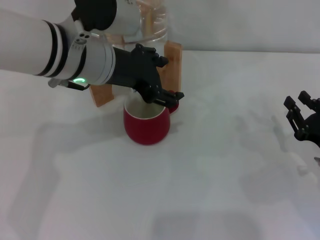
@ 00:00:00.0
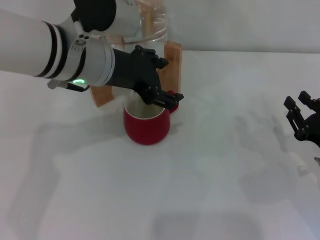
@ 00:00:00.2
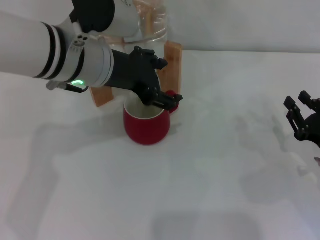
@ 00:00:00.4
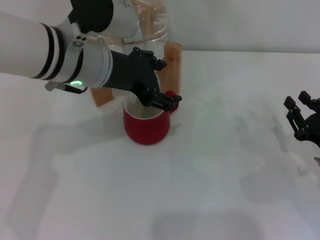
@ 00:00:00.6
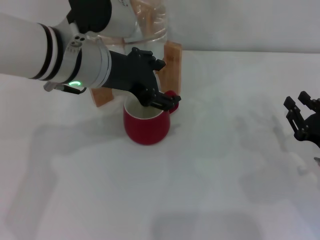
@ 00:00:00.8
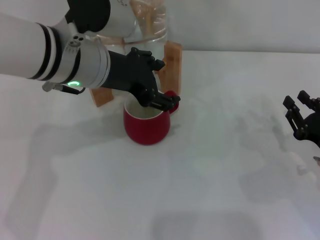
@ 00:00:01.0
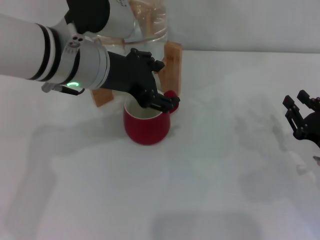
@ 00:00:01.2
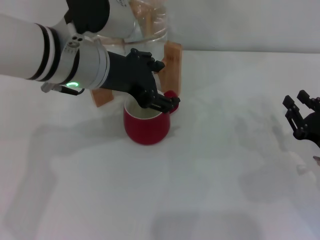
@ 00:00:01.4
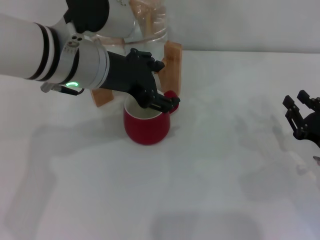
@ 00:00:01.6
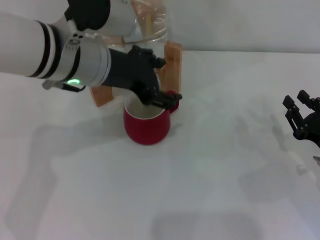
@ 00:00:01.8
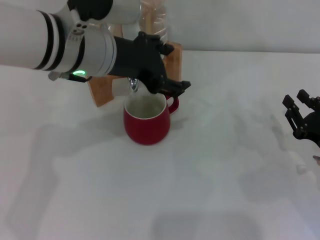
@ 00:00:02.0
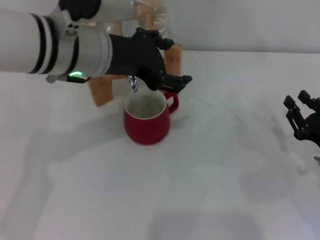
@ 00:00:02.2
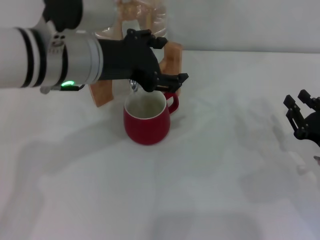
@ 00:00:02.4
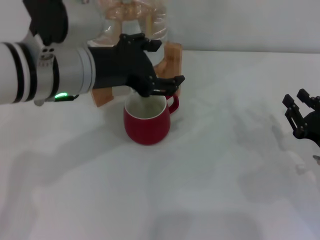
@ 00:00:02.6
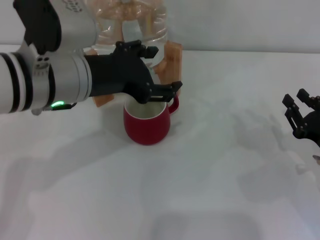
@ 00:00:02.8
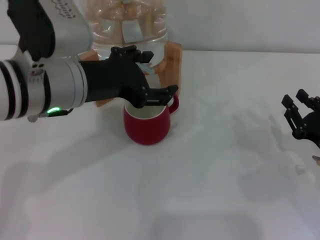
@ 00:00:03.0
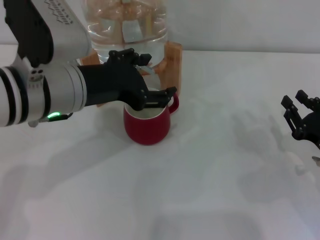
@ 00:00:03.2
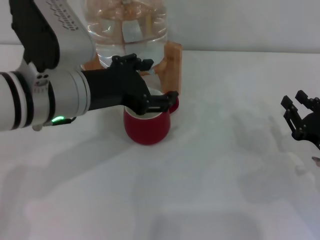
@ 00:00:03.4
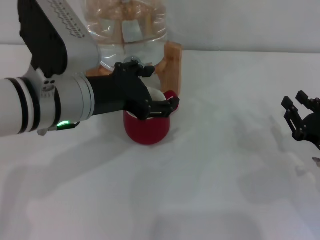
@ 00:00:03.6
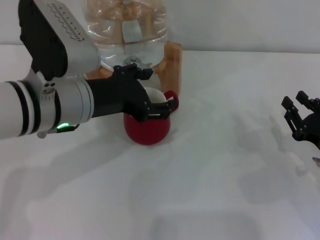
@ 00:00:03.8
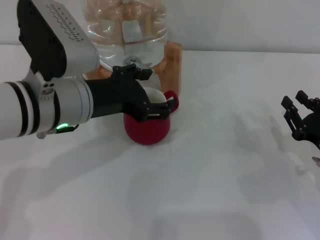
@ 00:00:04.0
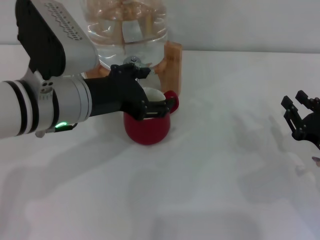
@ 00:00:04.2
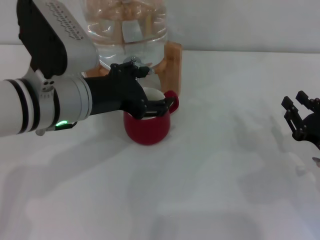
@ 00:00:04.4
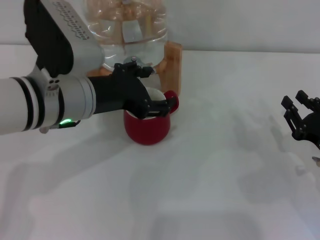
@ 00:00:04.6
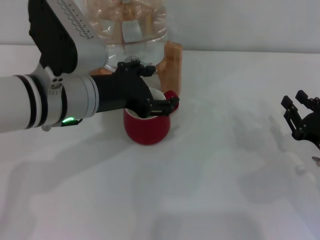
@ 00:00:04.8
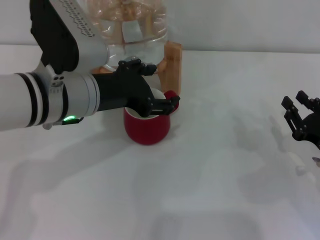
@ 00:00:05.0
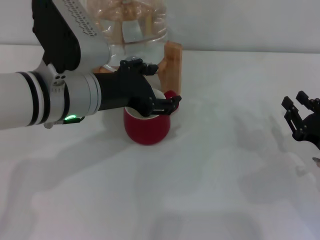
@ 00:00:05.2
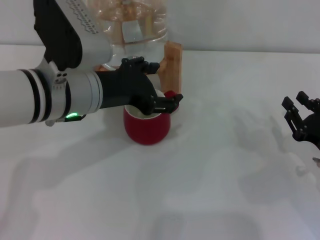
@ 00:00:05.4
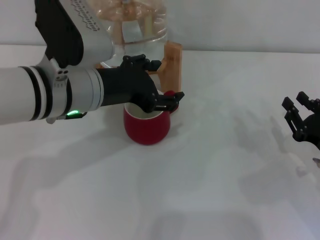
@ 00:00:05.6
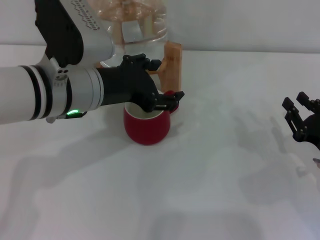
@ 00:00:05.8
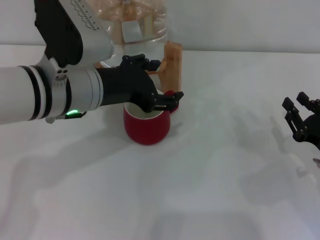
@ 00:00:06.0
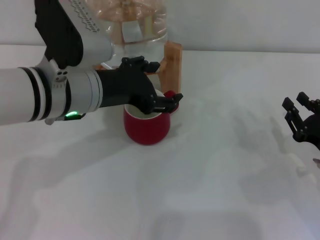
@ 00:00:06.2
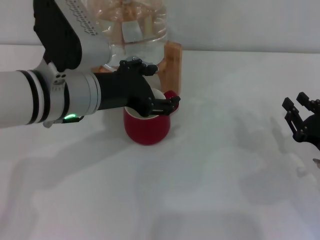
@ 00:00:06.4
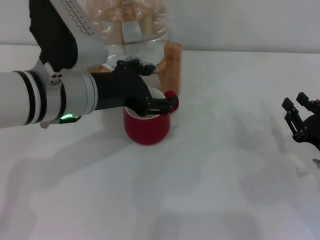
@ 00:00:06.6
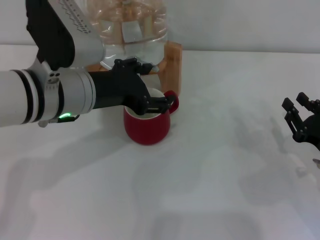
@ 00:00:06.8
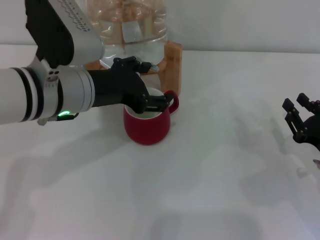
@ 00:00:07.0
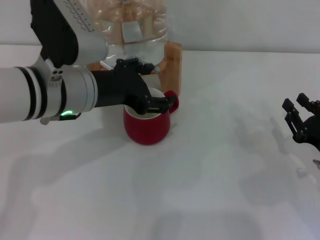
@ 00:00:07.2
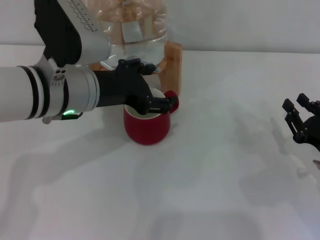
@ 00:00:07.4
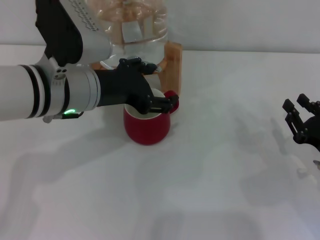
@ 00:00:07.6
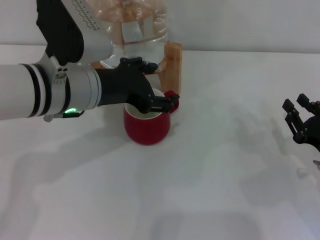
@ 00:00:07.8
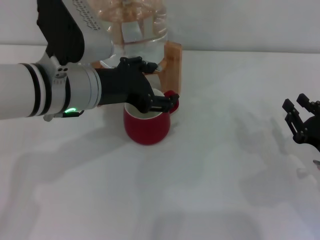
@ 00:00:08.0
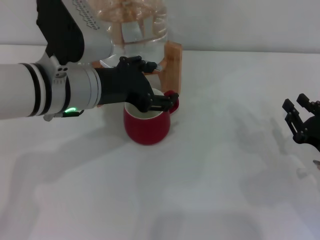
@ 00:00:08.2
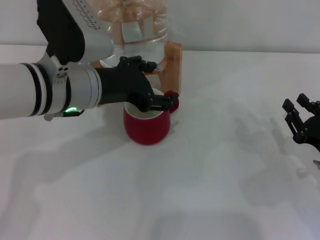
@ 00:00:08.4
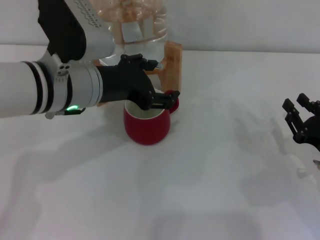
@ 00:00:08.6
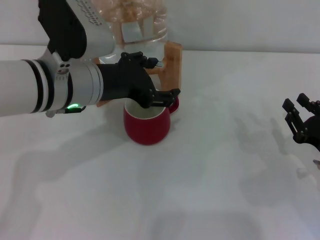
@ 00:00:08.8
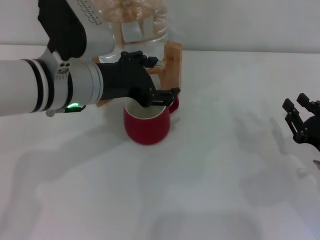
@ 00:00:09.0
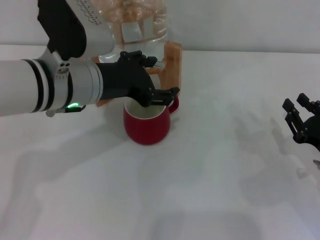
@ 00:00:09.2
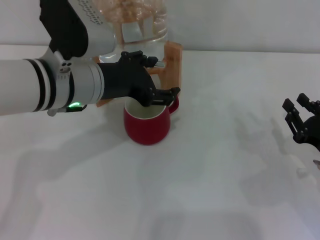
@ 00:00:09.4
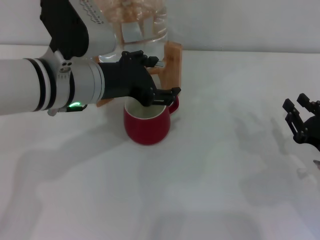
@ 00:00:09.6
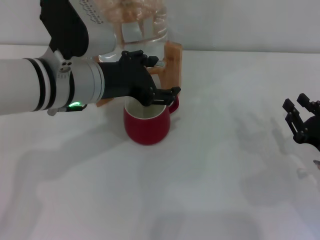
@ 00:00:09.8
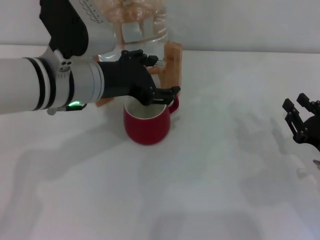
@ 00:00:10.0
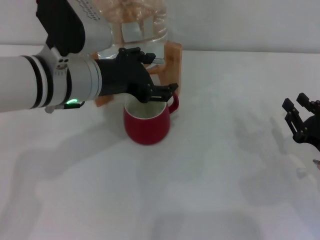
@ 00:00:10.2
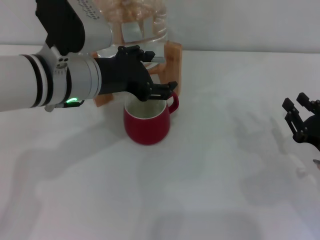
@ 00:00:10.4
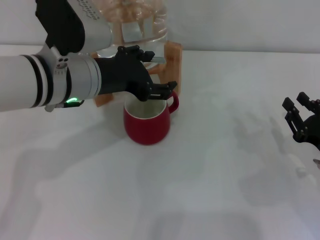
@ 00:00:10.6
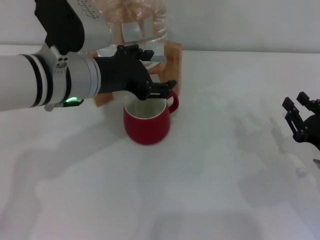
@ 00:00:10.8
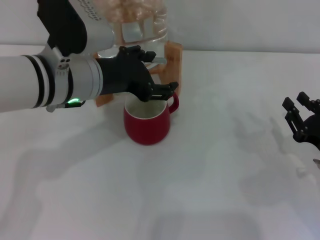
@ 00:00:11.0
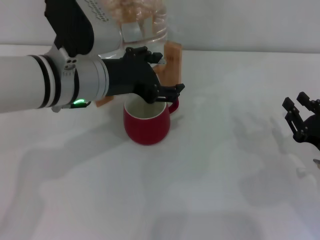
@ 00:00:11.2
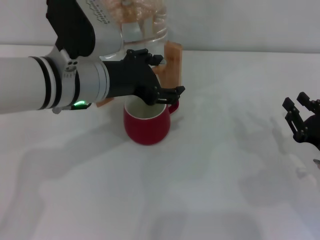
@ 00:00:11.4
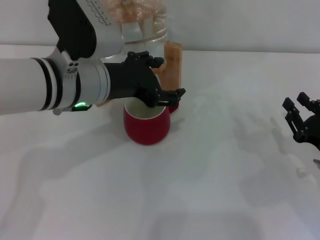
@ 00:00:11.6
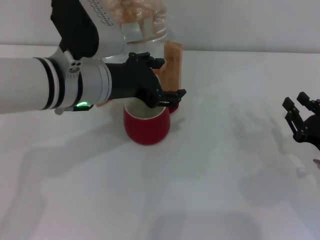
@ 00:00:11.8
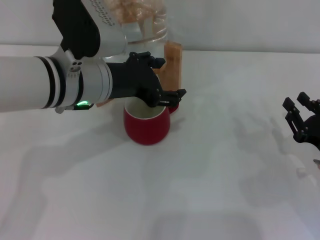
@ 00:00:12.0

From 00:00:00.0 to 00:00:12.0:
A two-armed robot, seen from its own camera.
Task of the whole recording: the right gripper pick up the red cup and place it horizontally under the faucet, the left gripper turn on the faucet to fill the cup, and then turn off the faucet.
Step, from 00:00:00.0 to 00:00:03.4: Open the dispenser valve and fill the cup with water with the left gripper.
From 00:00:00.0 to 00:00:01.6: Neither gripper changes place.
From 00:00:01.6 to 00:00:06.0: The grippers stay close to where they were, moving slightly.
From 00:00:06.0 to 00:00:09.0: Both grippers stay put.
From 00:00:09.0 to 00:00:12.0: Neither gripper changes place.

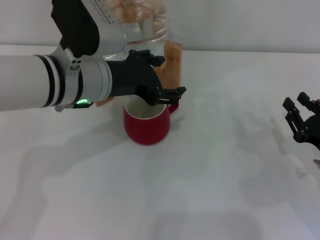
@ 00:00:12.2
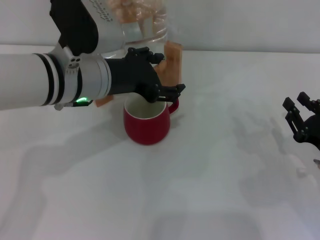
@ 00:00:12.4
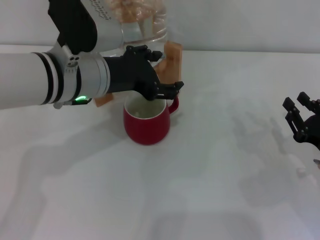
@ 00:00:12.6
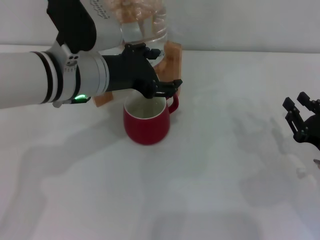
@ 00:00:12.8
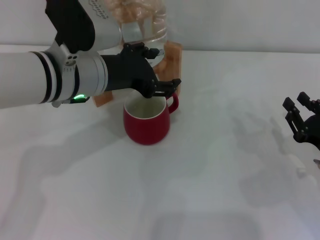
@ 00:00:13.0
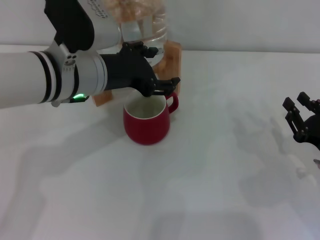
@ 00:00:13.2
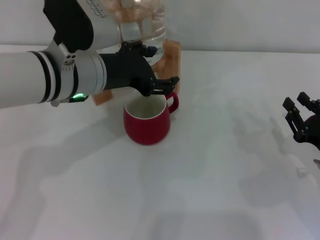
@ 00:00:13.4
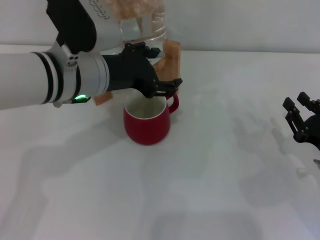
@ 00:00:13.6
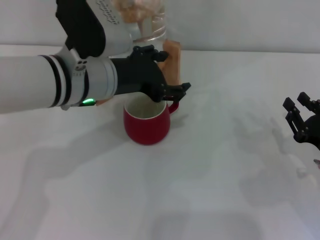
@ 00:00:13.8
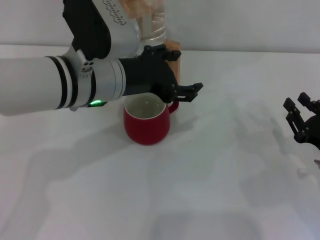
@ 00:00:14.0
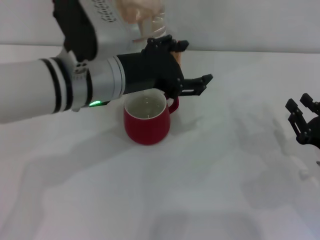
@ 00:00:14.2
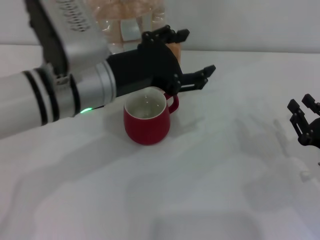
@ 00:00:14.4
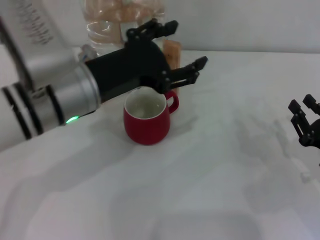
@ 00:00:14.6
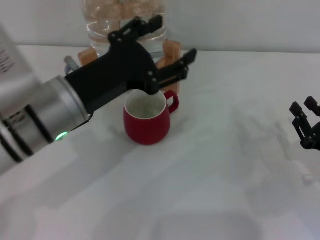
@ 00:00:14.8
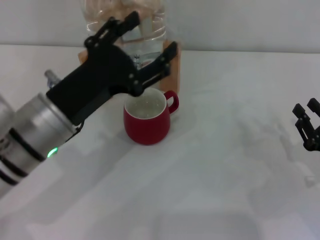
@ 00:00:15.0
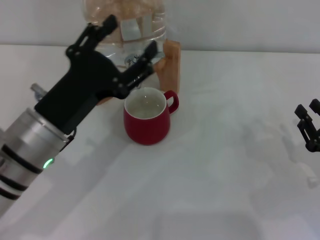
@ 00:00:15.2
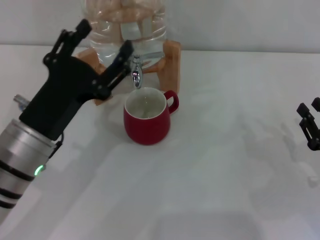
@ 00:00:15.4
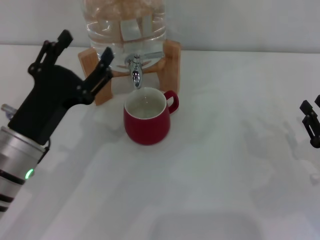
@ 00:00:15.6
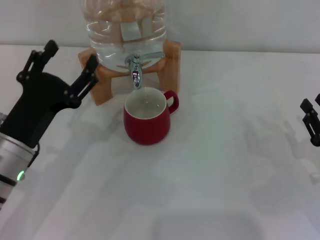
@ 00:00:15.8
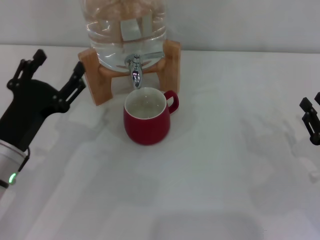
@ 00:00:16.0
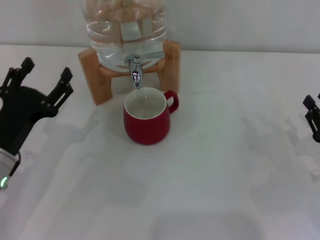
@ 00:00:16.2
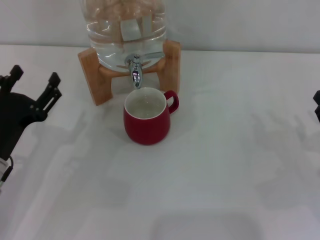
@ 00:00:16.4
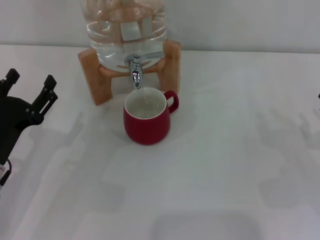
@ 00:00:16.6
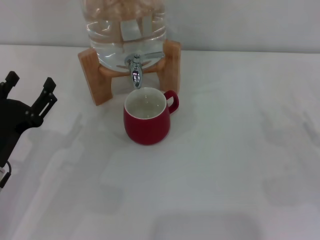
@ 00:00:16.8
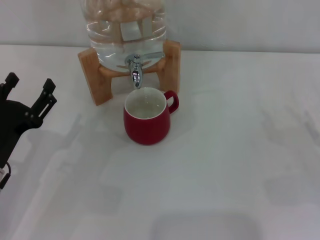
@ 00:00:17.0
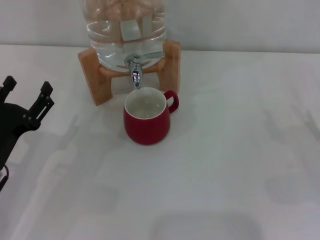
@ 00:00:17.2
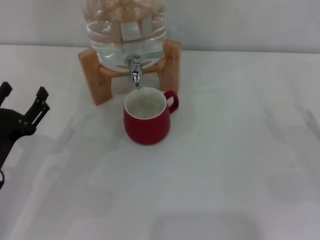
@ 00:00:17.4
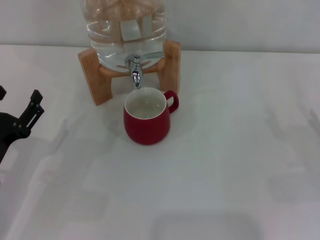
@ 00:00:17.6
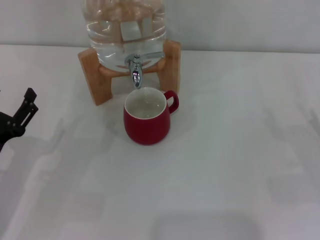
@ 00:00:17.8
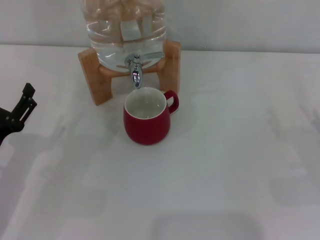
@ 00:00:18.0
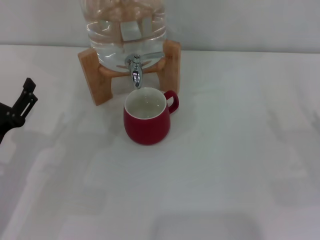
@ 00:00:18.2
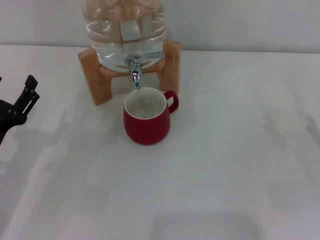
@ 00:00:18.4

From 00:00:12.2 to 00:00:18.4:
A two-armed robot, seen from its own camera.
Task of the whole recording: the right gripper pick up the red cup and place it horizontally under the faucet, the left gripper turn on the faucet to fill the cup, and then turn off the faucet.
Step, from 00:00:12.2 to 00:00:14.6: Close the dispenser valve with the left gripper.
From 00:00:12.2 to 00:00:13.8: The two grippers keep their place.
From 00:00:13.8 to 00:00:15.4: The left gripper moves backward, downward and to the left, about 15 cm.
From 00:00:15.4 to 00:00:16.8: The left gripper is displaced to the left and downward by some 10 cm.
